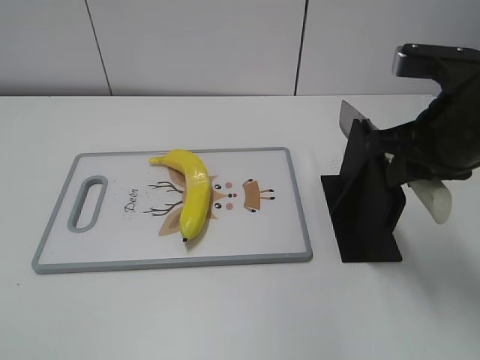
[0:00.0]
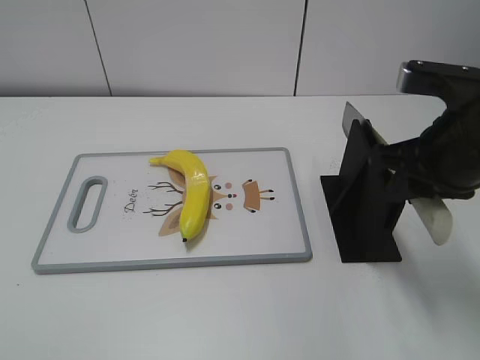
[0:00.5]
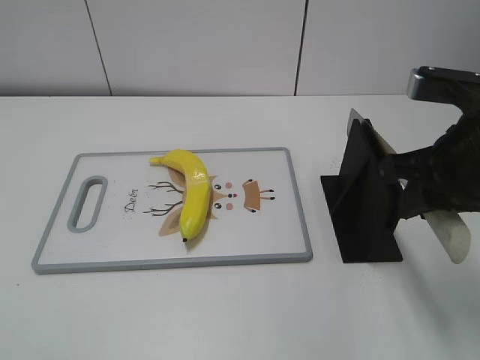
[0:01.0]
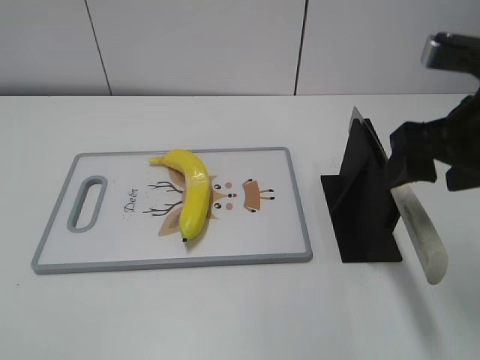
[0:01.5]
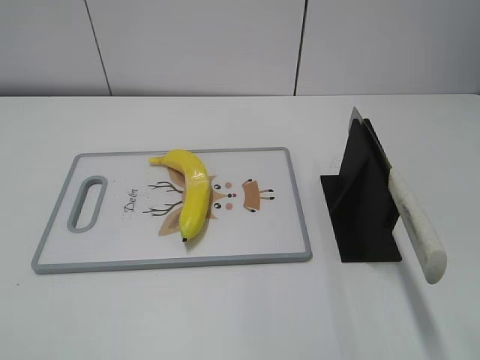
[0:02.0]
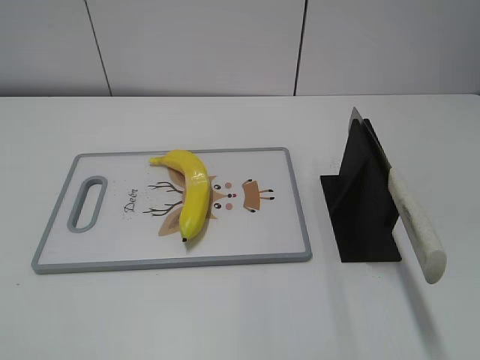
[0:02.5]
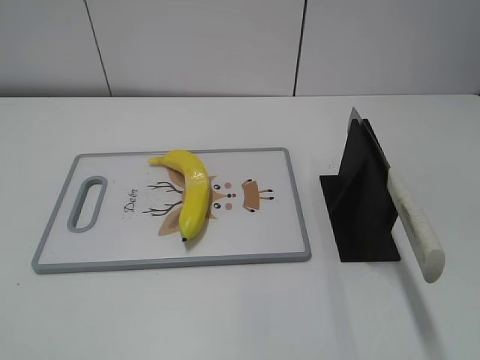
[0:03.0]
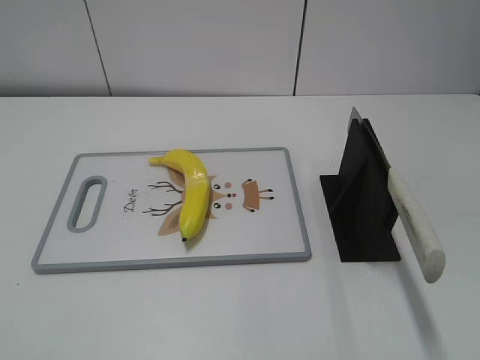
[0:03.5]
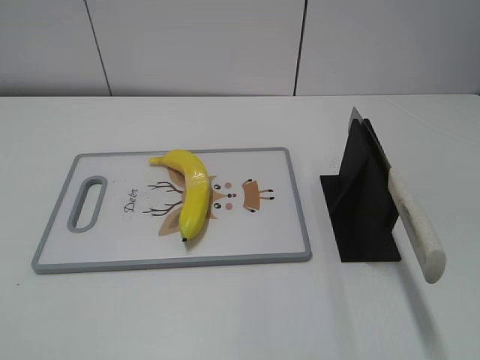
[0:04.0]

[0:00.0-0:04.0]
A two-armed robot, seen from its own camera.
Task of the whole recording: cut plastic banana.
Step, 0:00.5 to 0:04.0: Place the knife on the storage rack with your right hand.
0:00.0 to 0:02.0: The right gripper travels backward and upward by some 15 cm, and opens up.
